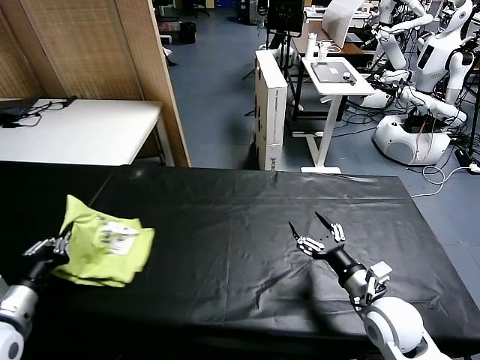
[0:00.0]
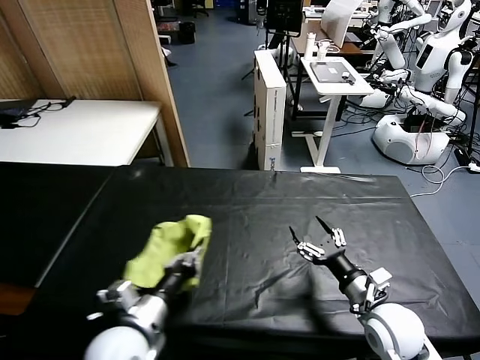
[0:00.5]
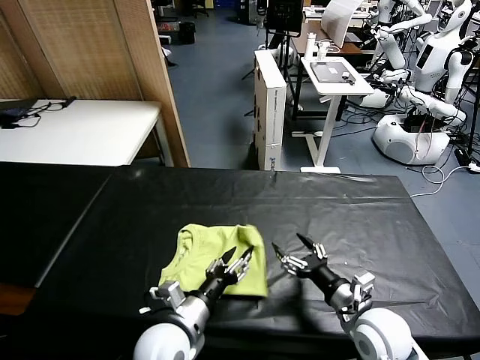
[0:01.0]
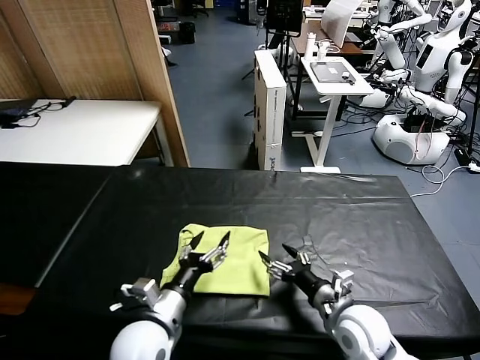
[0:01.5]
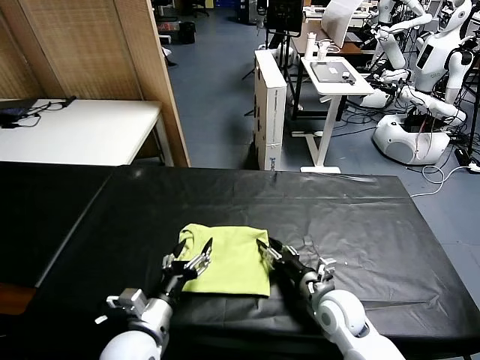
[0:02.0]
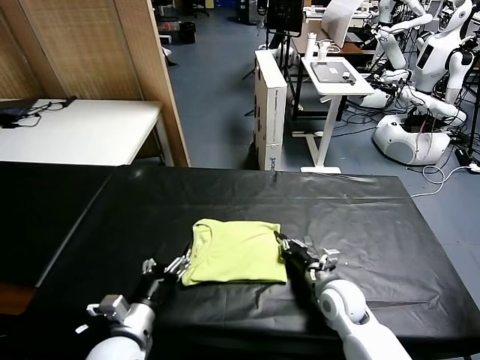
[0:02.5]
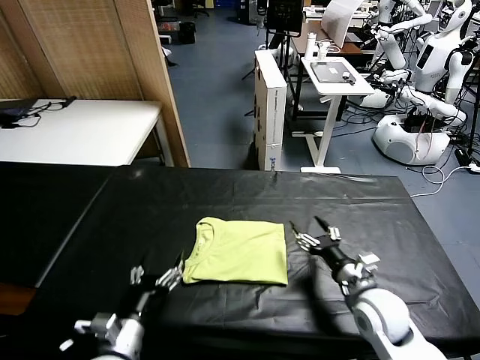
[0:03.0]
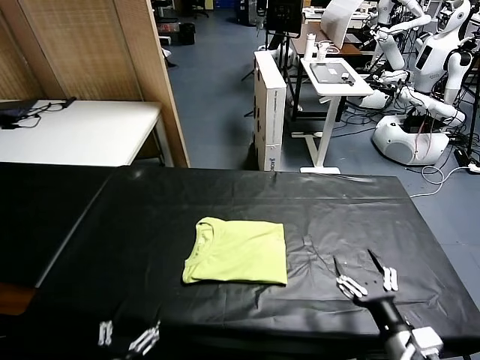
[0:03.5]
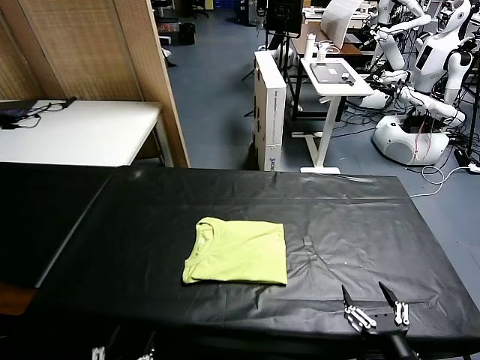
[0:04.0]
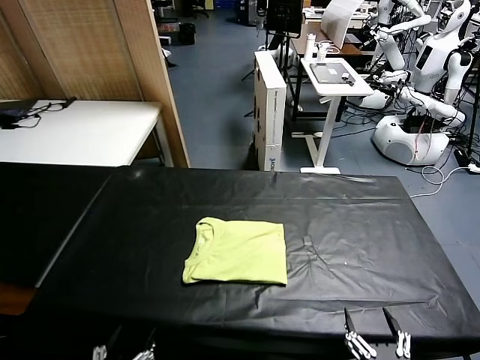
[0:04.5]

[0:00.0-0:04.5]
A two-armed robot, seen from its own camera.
Task of the whole recording: fold and organize the clothes.
Step, 0:01.5 to 0:02.5: Drag the clothes to the center of the table.
0:00.0 to 0:02.0: The right gripper is displaced to the left, downward and forward by about 10 cm, and closes up. Meanwhile the left gripper goes some 20 cm to the right and downward, and opens its fingers.
0:02.0 to 0:04.5: The left gripper moves backward, roughly 20 cm, while the right gripper goes about 30 cm backward, and opens.

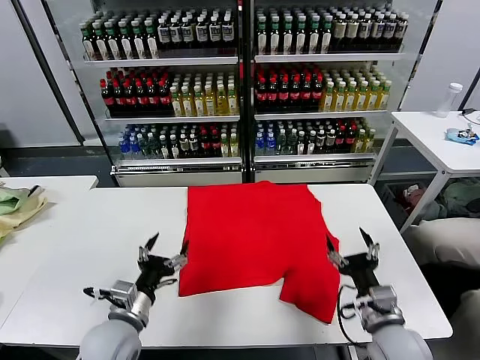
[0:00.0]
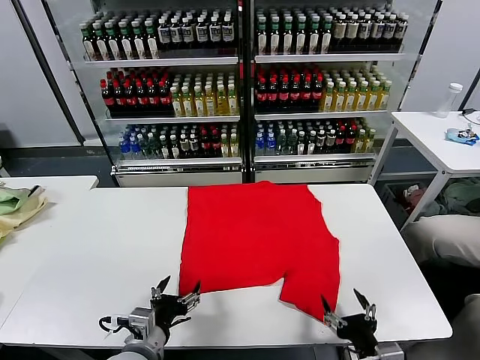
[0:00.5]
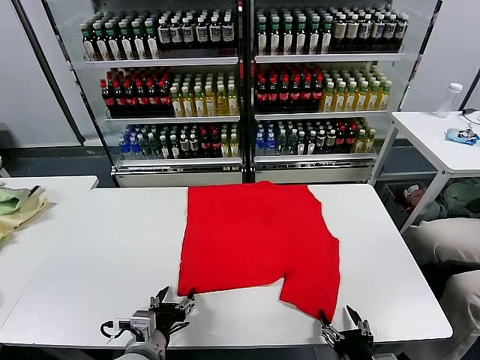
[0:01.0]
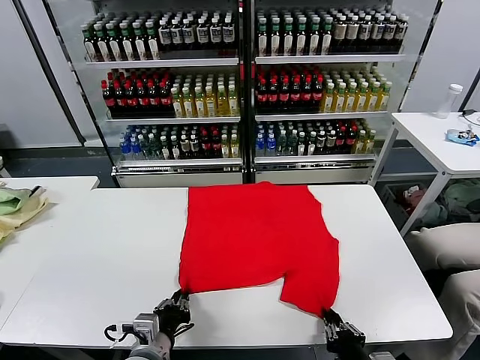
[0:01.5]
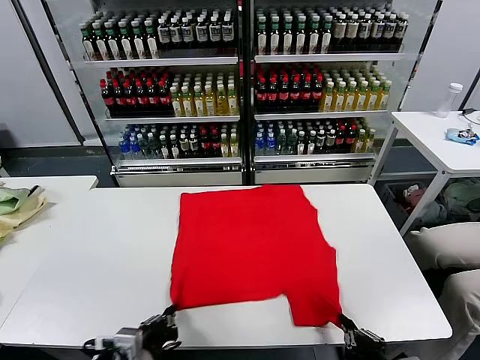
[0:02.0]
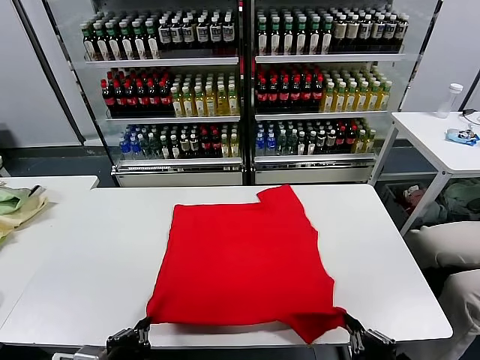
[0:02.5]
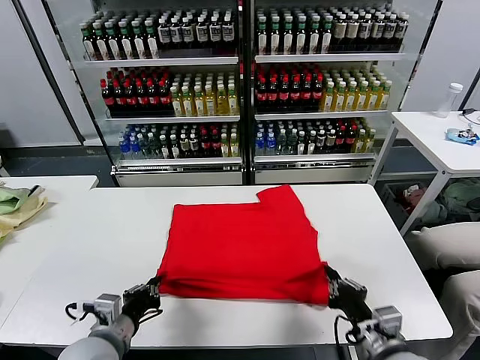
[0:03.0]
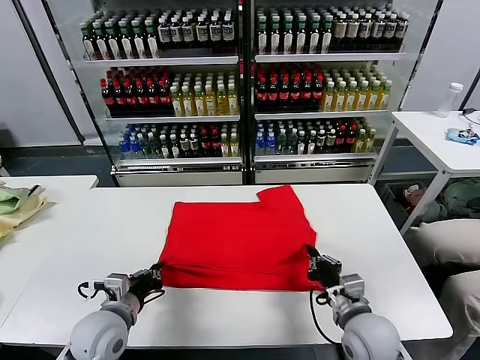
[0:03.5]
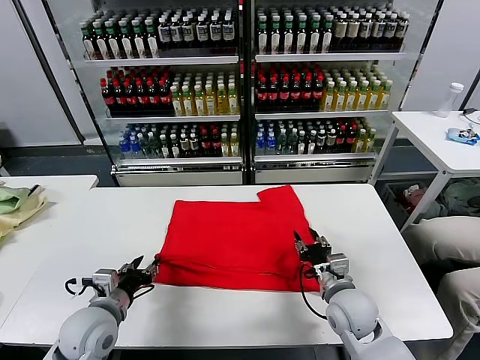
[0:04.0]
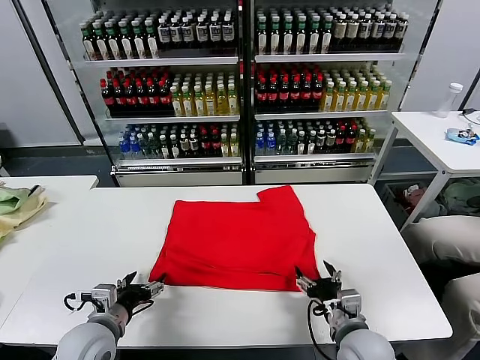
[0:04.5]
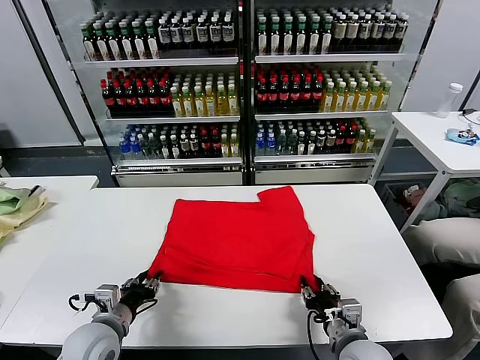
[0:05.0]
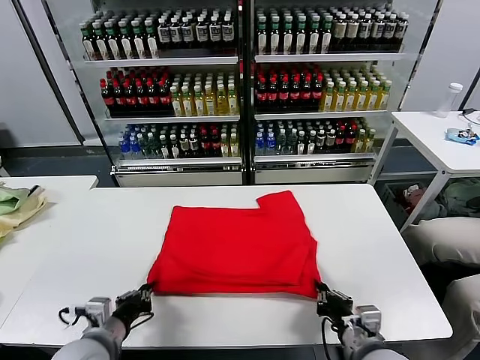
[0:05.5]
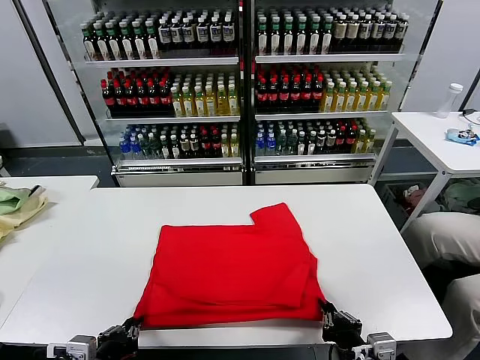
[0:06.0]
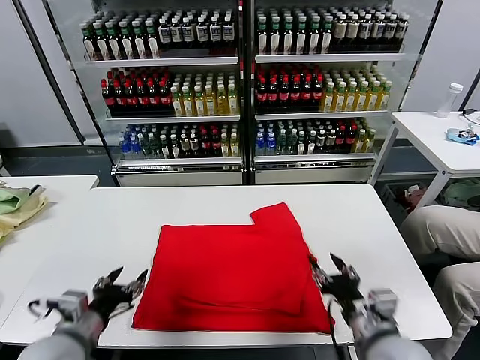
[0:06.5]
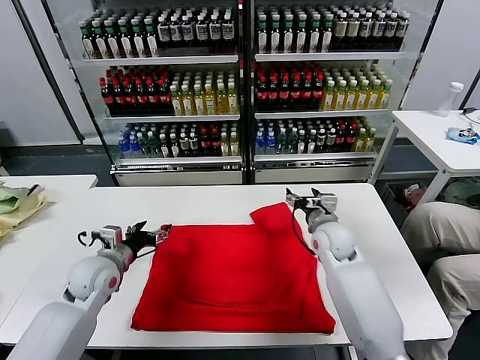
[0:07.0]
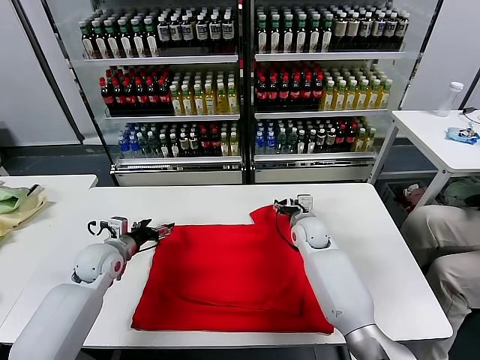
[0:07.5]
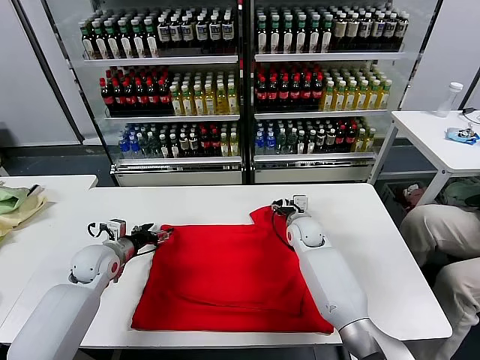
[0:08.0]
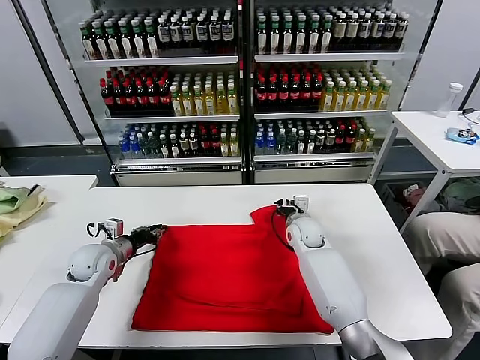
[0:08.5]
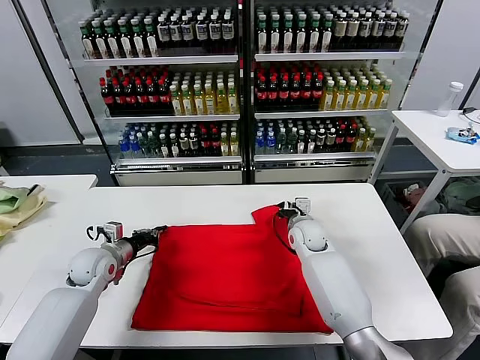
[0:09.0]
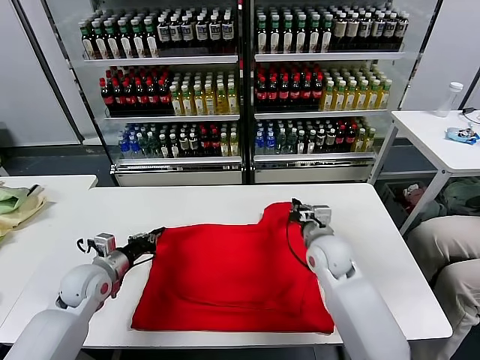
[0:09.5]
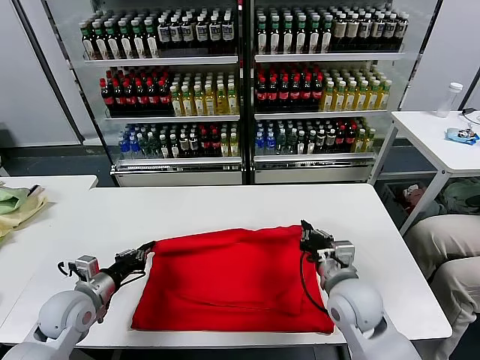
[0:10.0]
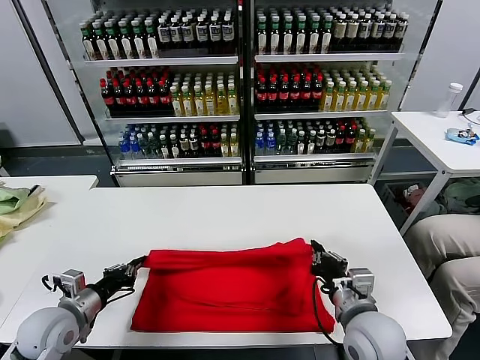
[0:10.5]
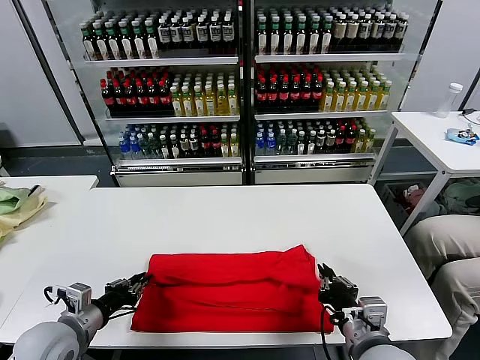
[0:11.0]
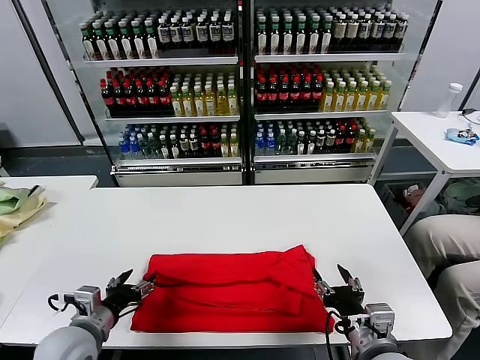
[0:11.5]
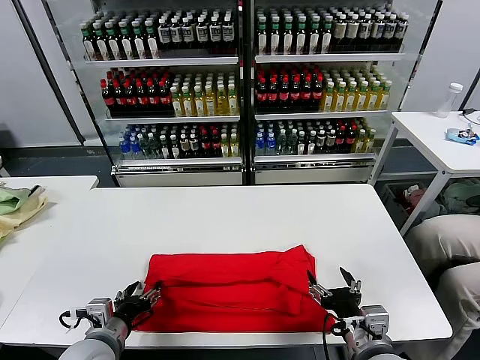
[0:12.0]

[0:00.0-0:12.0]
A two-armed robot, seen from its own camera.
Task of the whole recording: fold and organize the clothes.
Step, 0:00.0 to 0:01.5: use both grippers simultaneously to clamp the lower edge of the clothing fabric.
Step, 0:02.0 to 0:03.5: use both grippers to drag the lower edge of the fabric forward and fold it over the upper edge.
Step, 0:04.0 to 0:06.0: Drag the clothes downward with both gripper.
Step, 0:06.5 to 0:08.5: use both grippers simultaneously to clamp the upper edge of the clothing fabric.
Step, 0:09.0 to 0:11.0: use both grippers to drag the upper edge of the fabric backward and fold it over the lower edge.
0:02.0 to 0:04.0: The right gripper travels forward by some 20 cm, and opens up, while the left gripper moves forward and to the left, about 15 cm, and opens.
0:04.0 to 0:06.0: Both grippers travel together backward, roughly 15 cm. The right gripper closes, while the left gripper closes its fingers.
0:06.0 to 0:08.0: The two grippers go about 35 cm forward. The right gripper opens its fingers; the left gripper opens.
0:08.0 to 0:10.0: The left gripper moves backward, some 10 cm, and closes up; the right gripper moves backward, roughly 25 cm, and closes up.
0:10.0 to 0:12.0: The right gripper goes approximately 10 cm backward, and opens; the left gripper travels backward and to the right by some 10 cm, and opens its fingers.

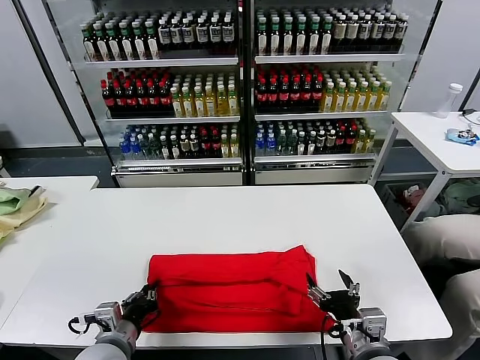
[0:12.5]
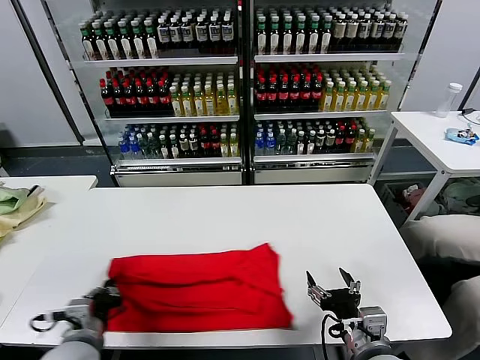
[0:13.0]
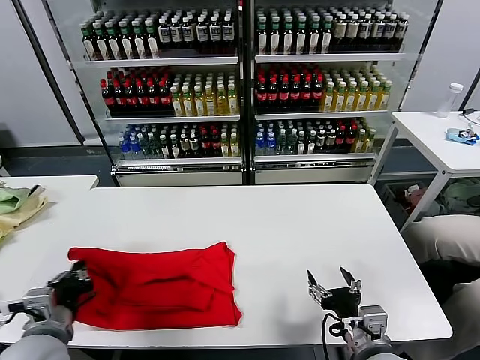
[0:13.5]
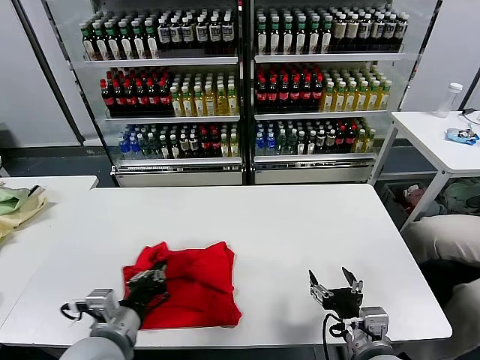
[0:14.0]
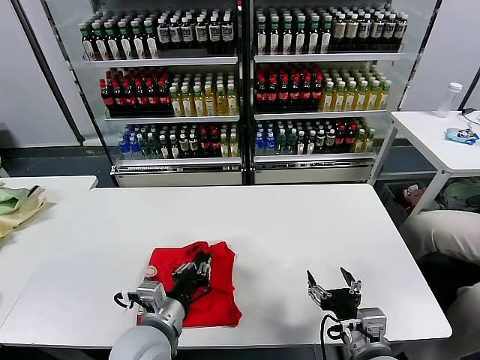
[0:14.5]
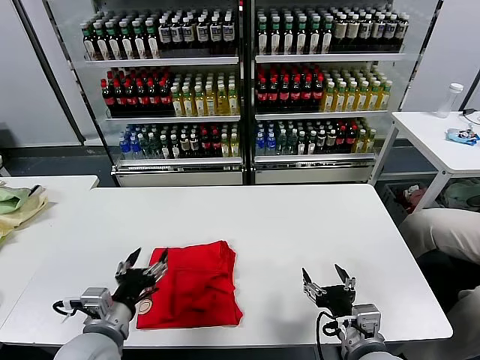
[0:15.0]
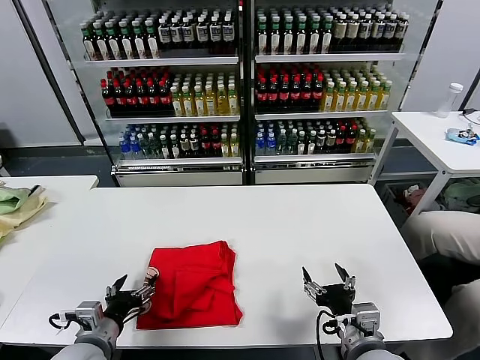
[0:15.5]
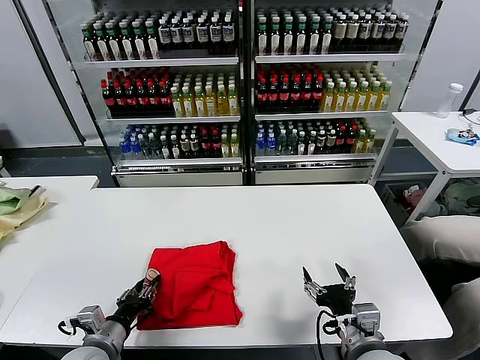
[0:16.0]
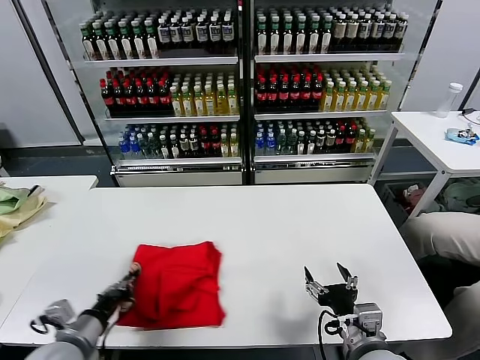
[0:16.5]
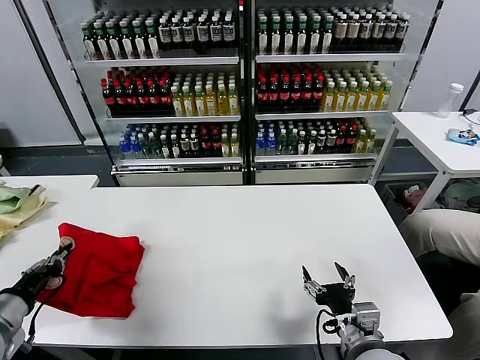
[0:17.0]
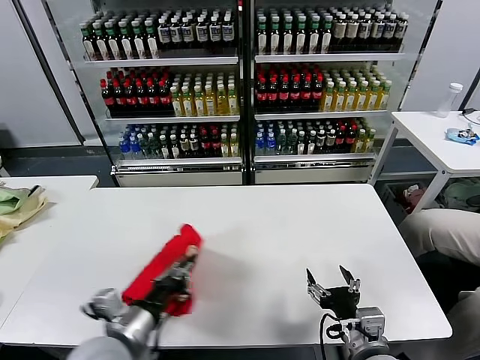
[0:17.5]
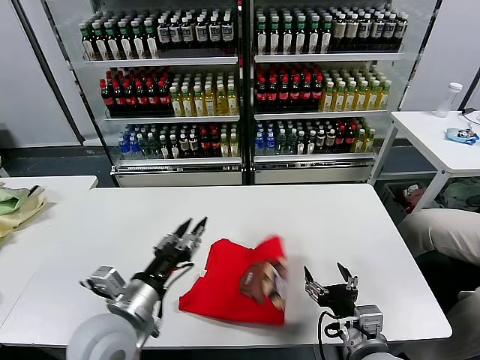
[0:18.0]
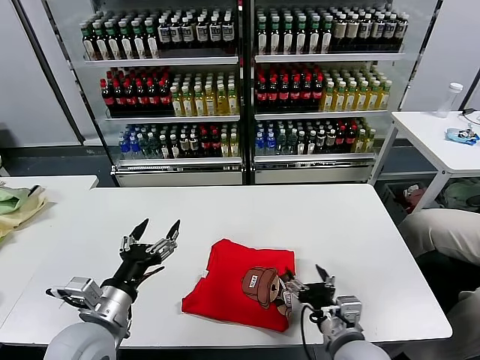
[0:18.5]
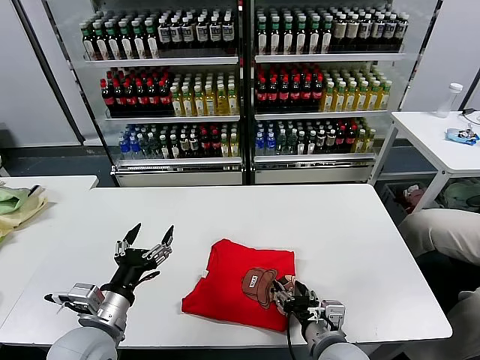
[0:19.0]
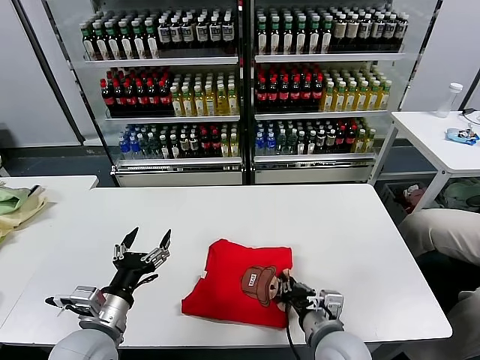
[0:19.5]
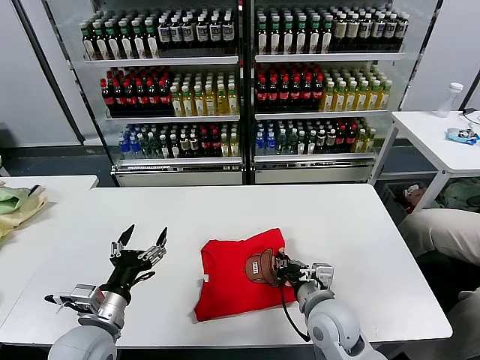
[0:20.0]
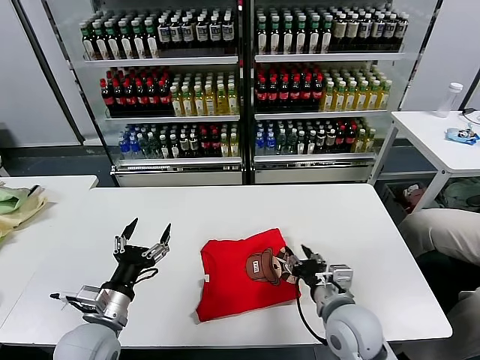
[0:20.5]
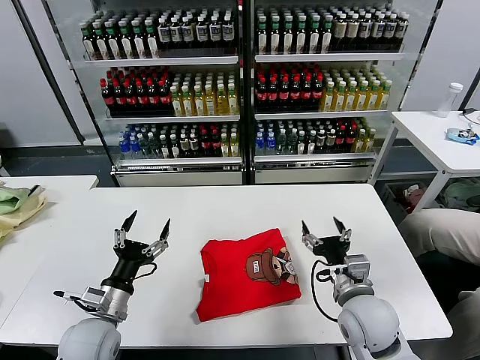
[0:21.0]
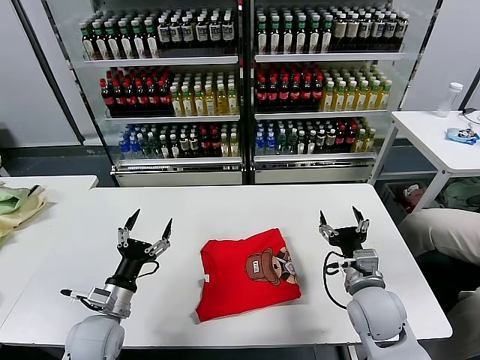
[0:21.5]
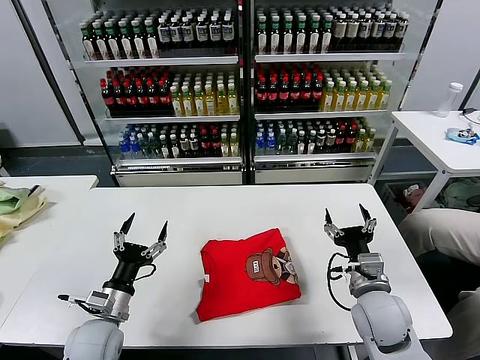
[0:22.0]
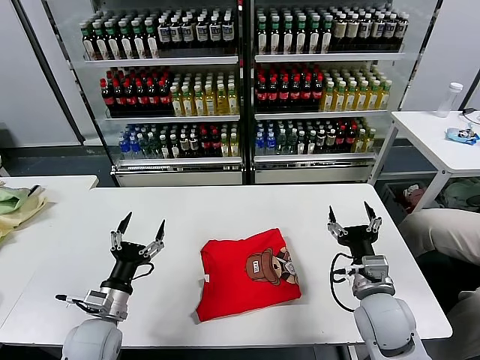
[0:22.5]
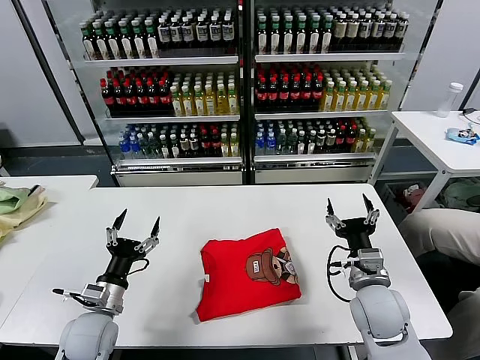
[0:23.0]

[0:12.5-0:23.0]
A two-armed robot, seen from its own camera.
Task of the whole recording: fold and organize the clothes.
Step, 0:13.0 to 0:14.5: use the left gripper to drag the left edge of the fabric to the left and folds it over the right edge.
Step, 0:15.0 to 0:18.0: Flip the folded clothes over with left gripper.
Step, 0:18.5 to 0:20.0: Drag the clothes to the center of the table.
0:12.5 to 0:14.5: The left gripper goes some 10 cm to the right and upward.
0:14.5 to 0:16.5: The left gripper moves to the left, approximately 15 cm, and opens and closes again.
0:16.5 to 0:19.0: The right gripper moves approximately 5 cm. The left gripper goes left and right, some 25 cm each way, reversing 2 times, and opens up.
0:19.0 to 0:21.0: The left gripper goes some 5 cm downward, while the right gripper goes approximately 5 cm forward, and closes, then opens again.
0:21.0 to 0:23.0: The grippers stay close to where they were, moving slightly.
